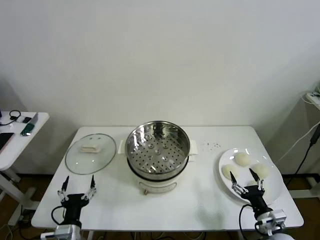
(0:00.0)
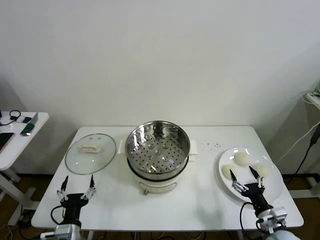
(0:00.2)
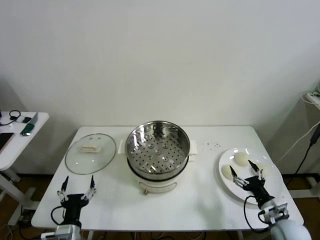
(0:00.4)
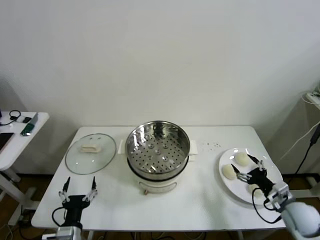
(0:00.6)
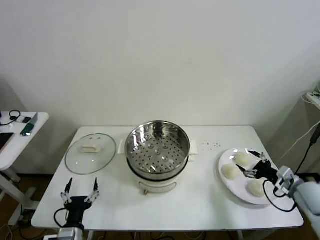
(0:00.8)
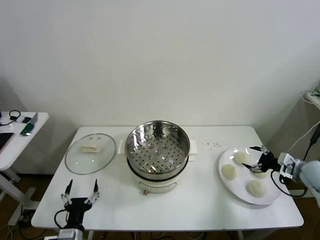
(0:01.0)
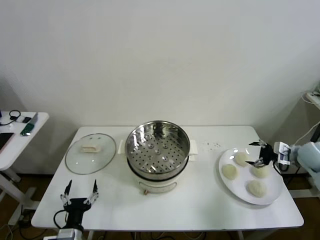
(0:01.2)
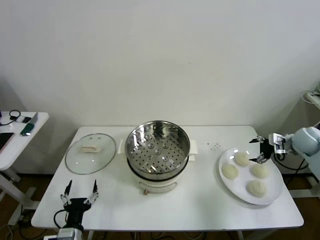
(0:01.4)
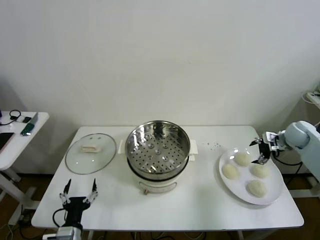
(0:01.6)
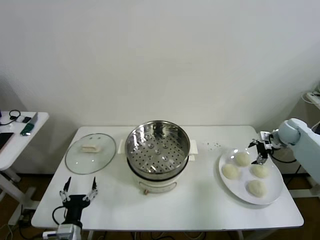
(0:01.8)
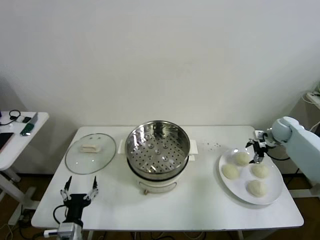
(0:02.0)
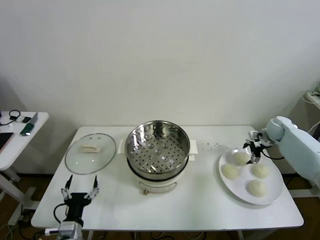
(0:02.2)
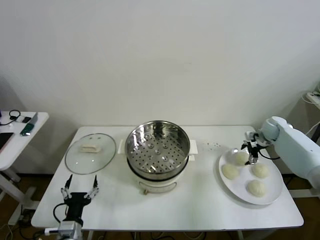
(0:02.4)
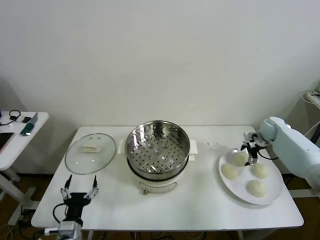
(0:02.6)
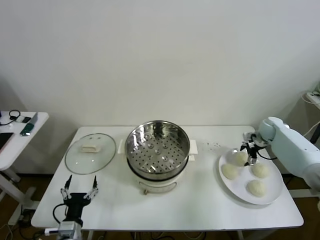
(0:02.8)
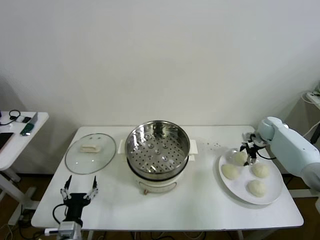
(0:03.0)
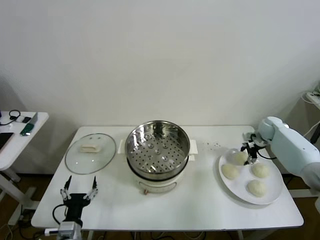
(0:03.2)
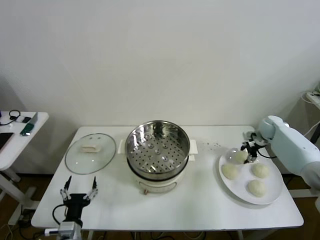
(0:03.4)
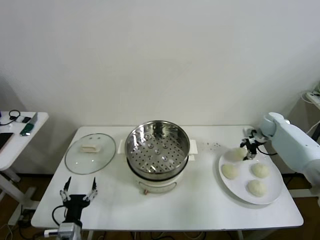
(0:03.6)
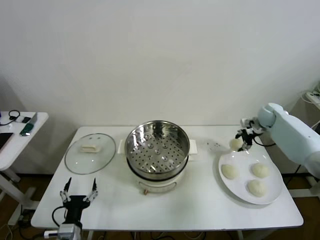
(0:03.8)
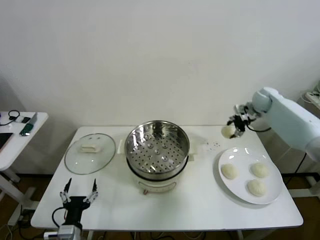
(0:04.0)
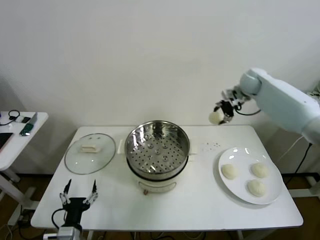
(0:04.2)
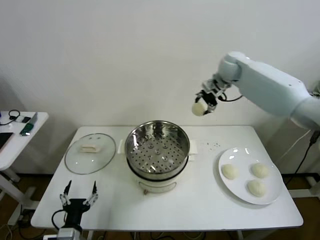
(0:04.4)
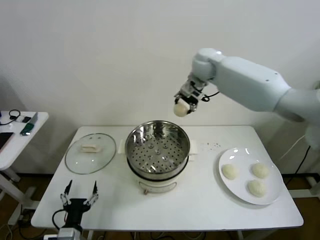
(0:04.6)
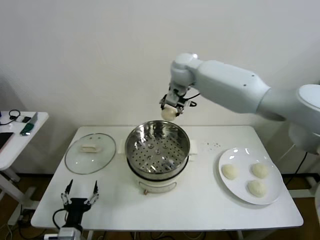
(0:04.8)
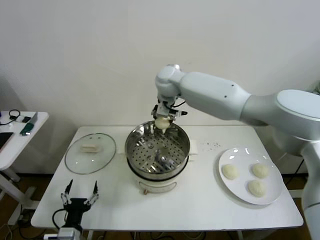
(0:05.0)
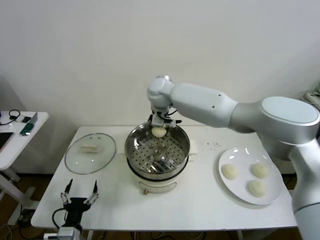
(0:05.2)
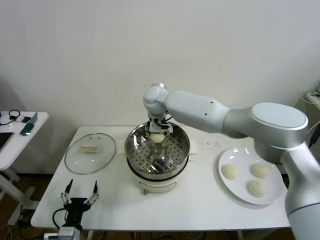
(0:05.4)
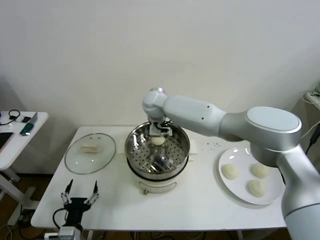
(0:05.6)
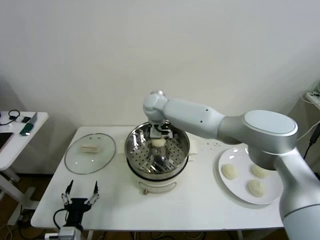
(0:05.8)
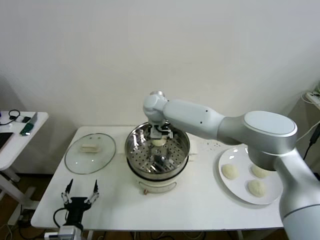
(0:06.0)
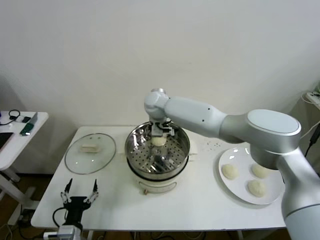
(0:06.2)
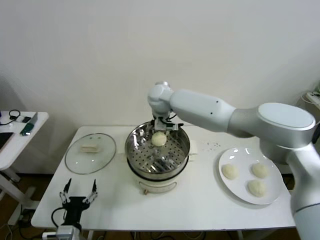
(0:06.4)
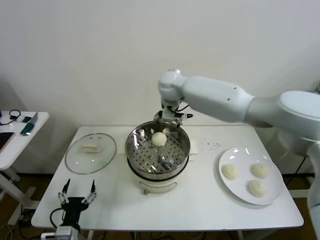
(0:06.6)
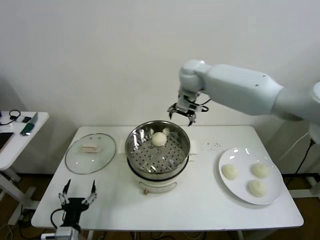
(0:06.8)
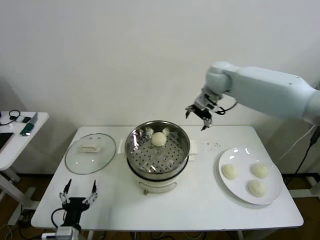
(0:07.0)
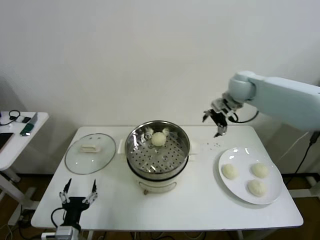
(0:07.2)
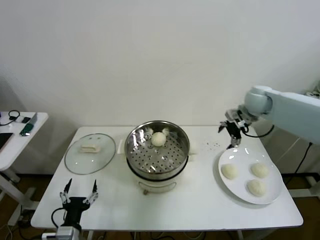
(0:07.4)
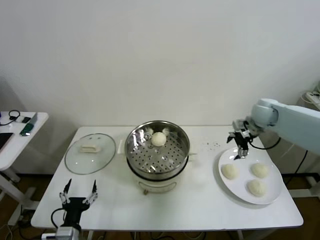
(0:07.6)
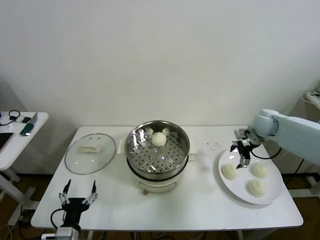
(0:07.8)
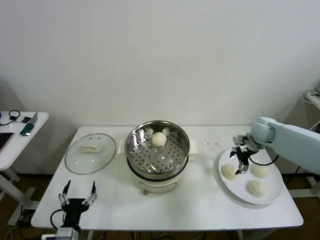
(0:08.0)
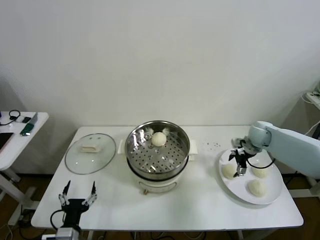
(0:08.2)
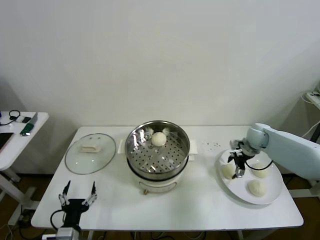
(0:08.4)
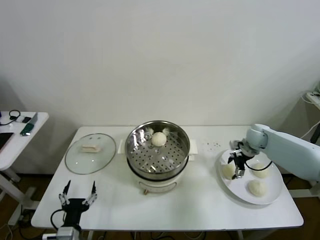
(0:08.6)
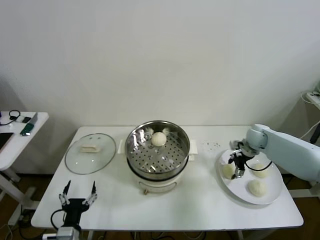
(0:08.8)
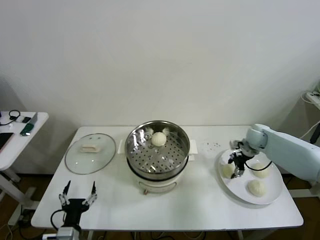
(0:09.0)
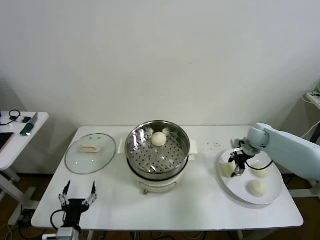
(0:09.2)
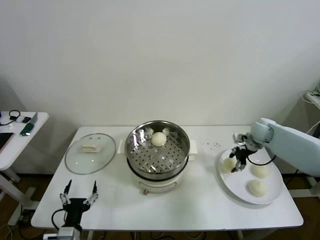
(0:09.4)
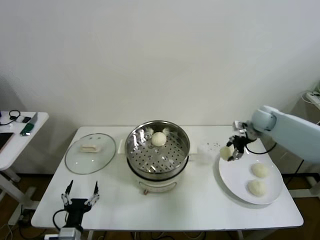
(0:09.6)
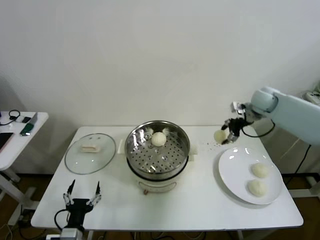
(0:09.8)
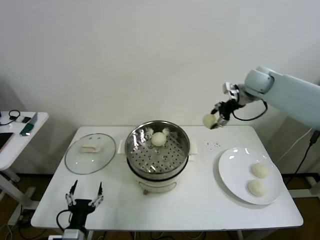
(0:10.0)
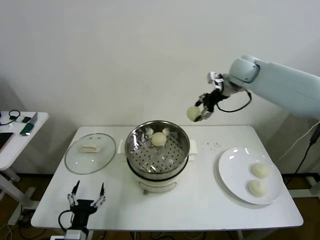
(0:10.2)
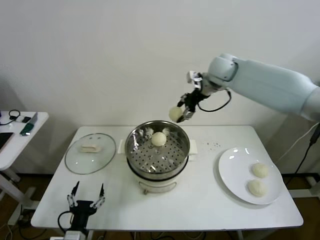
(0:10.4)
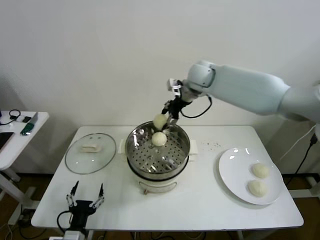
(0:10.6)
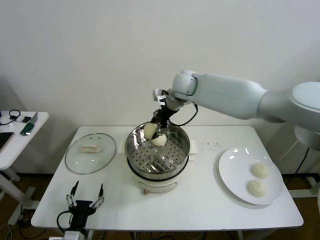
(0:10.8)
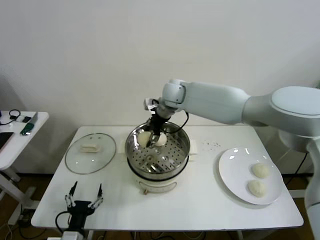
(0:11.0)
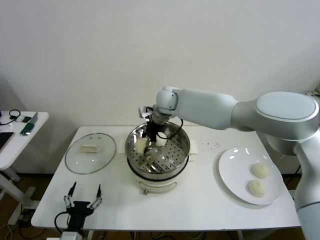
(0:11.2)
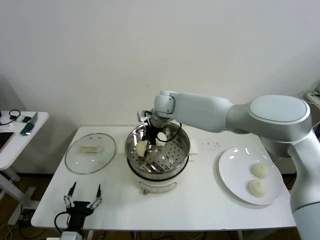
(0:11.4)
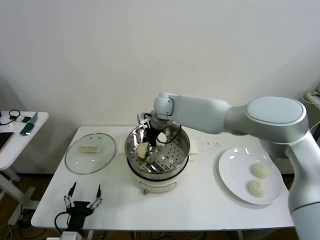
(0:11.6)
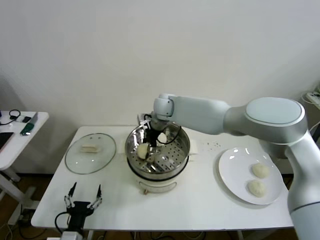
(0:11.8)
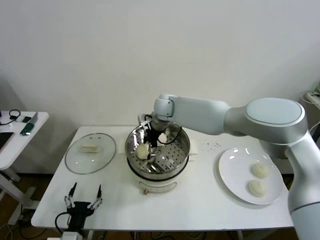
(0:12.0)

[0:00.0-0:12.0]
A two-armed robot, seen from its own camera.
Task of the whole recording: take steamed baozi put them in steamer then cover it.
Step, 0:00.0 to 0:03.2: Grasp the baozi in the plate with right gripper.
Step, 0:03.4 to 0:06.0: Place the baozi on the steamer with right gripper.
Step, 0:06.2 to 0:08.8: Grasp the baozi in the plate with right gripper.
0:01.6 to 0:03.0: The right gripper shifts approximately 5 cm forward, and closes.
0:03.0 to 0:04.4: The right gripper is displaced to the left and upward by about 40 cm, and closes its fingers.
0:04.4 to 0:06.0: The right gripper heads to the left and downward, covering approximately 25 cm, and opens its fingers.
0:06.0 to 0:07.6: The right gripper moves to the right, approximately 40 cm.
0:07.6 to 0:09.0: The right gripper shifts approximately 10 cm downward, and closes.
0:09.0 to 0:10.4: The right gripper travels upward and to the left by approximately 35 cm.
0:10.4 to 0:12.0: The right gripper is displaced to the left and downward by about 20 cm, and opens up.

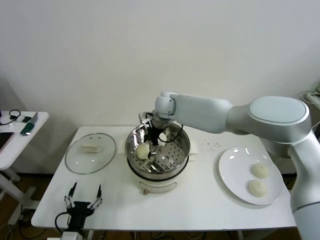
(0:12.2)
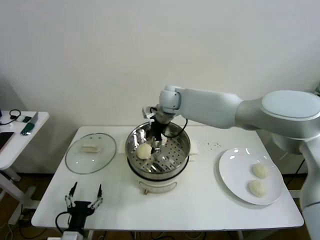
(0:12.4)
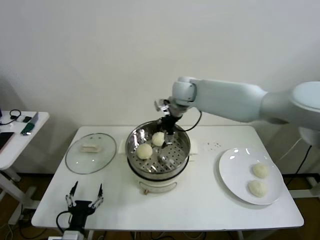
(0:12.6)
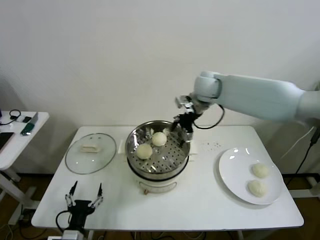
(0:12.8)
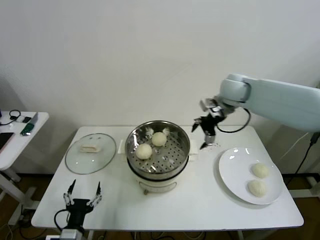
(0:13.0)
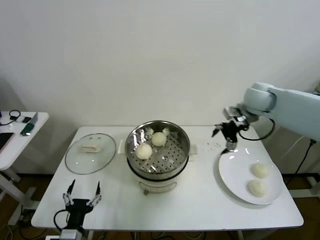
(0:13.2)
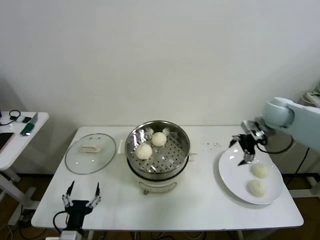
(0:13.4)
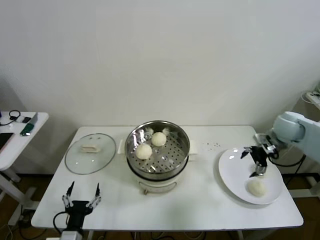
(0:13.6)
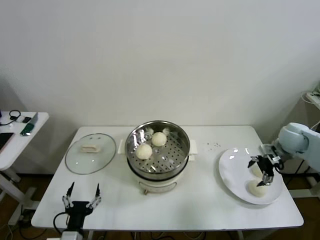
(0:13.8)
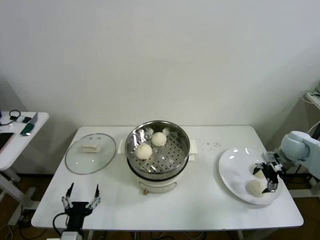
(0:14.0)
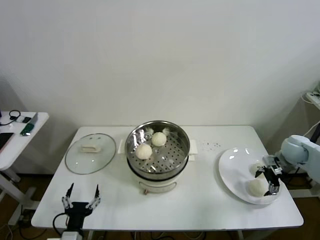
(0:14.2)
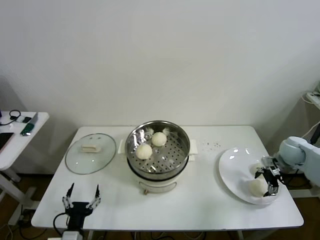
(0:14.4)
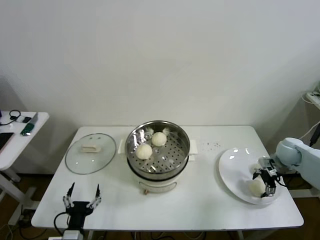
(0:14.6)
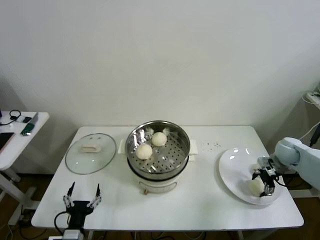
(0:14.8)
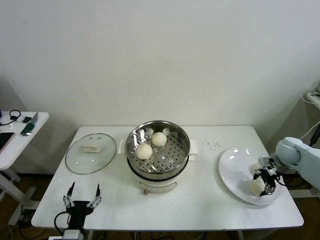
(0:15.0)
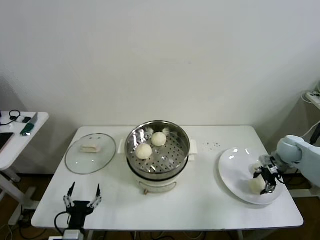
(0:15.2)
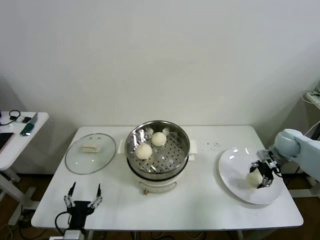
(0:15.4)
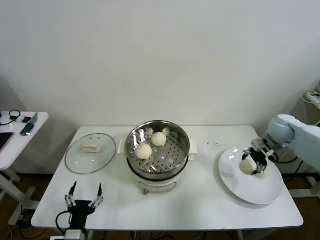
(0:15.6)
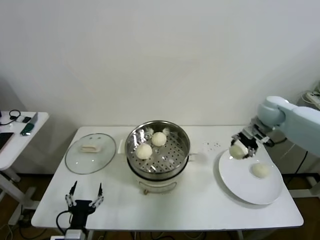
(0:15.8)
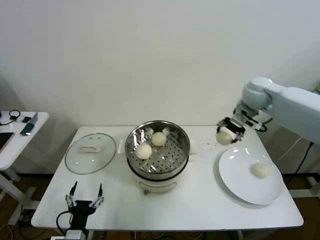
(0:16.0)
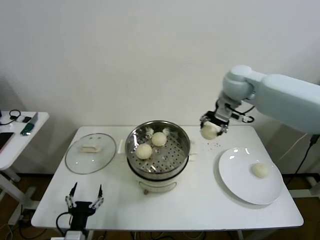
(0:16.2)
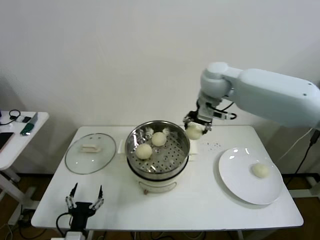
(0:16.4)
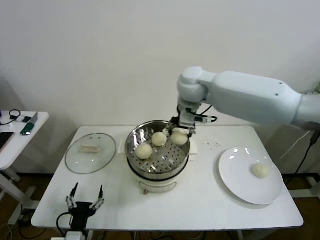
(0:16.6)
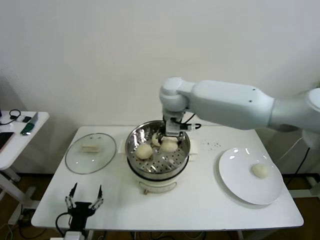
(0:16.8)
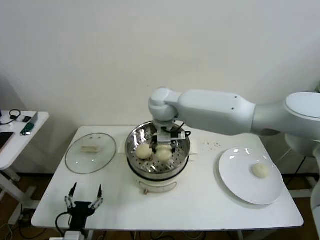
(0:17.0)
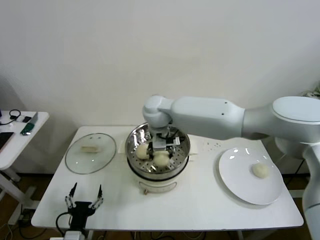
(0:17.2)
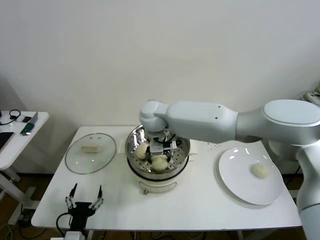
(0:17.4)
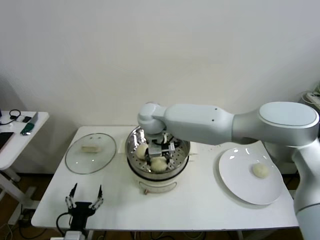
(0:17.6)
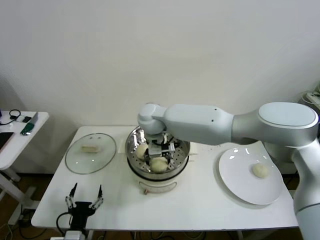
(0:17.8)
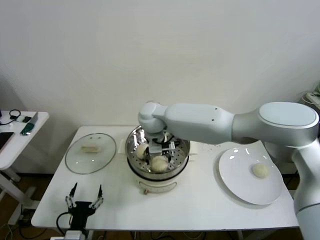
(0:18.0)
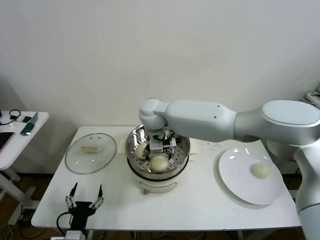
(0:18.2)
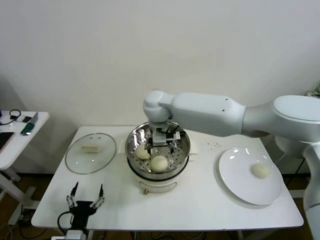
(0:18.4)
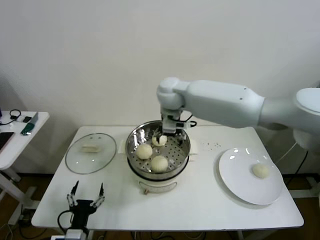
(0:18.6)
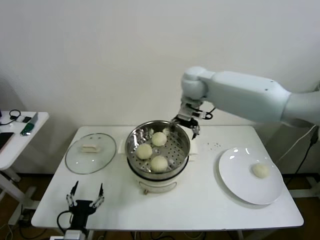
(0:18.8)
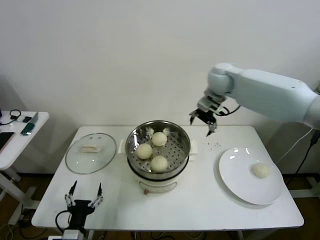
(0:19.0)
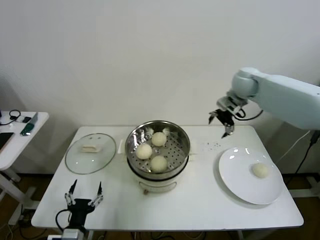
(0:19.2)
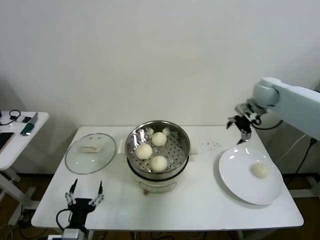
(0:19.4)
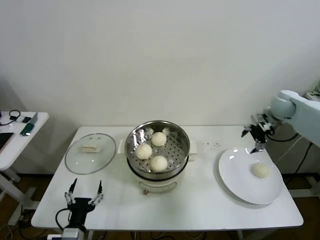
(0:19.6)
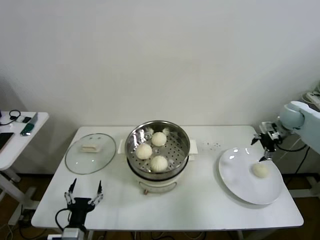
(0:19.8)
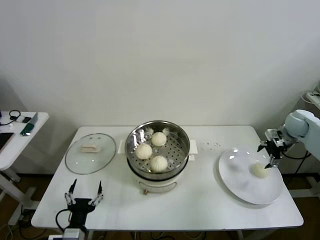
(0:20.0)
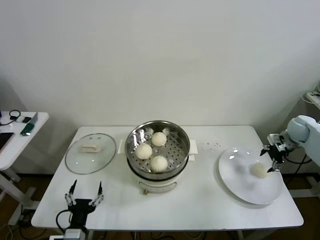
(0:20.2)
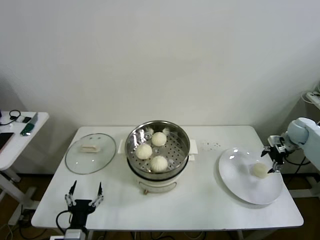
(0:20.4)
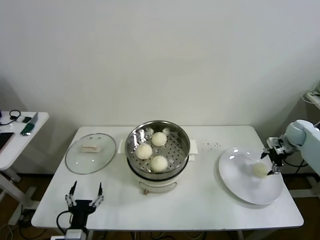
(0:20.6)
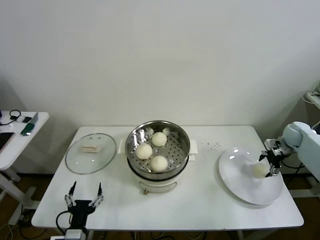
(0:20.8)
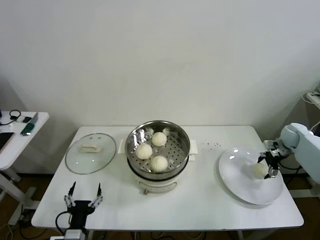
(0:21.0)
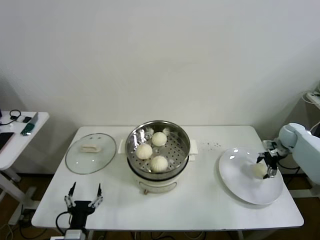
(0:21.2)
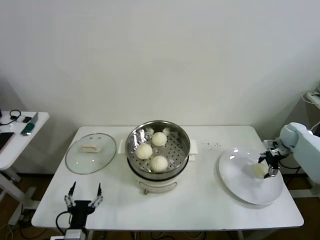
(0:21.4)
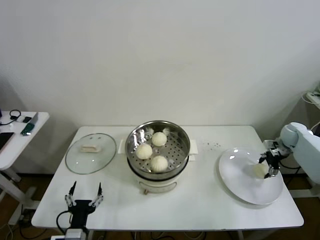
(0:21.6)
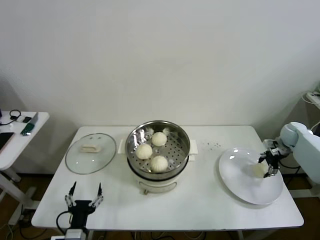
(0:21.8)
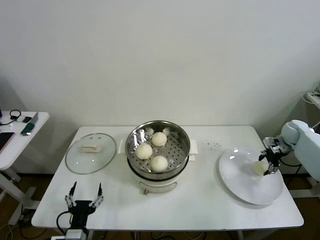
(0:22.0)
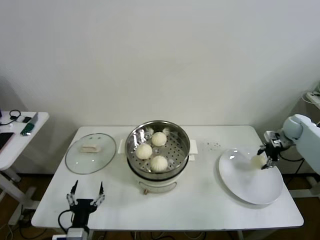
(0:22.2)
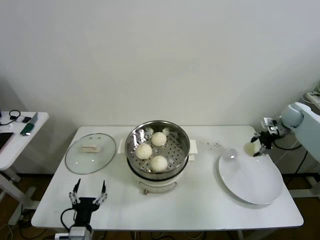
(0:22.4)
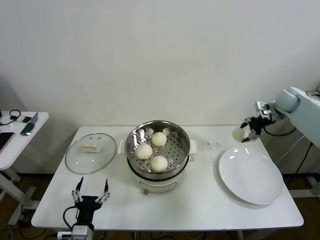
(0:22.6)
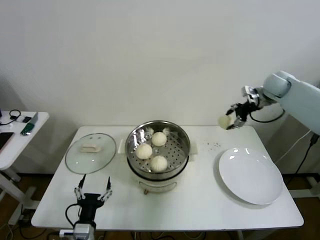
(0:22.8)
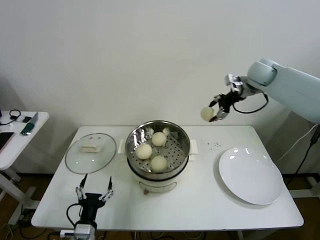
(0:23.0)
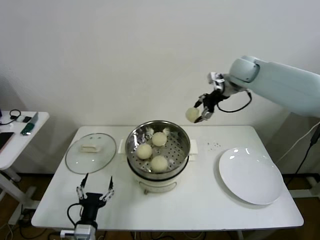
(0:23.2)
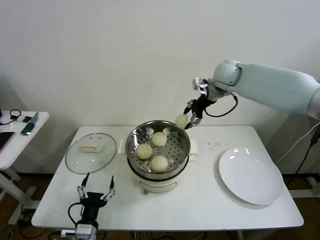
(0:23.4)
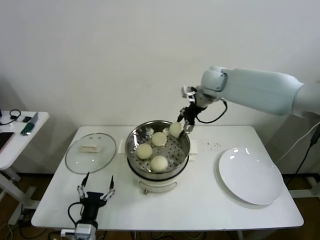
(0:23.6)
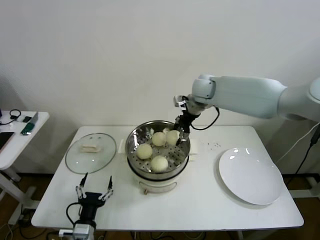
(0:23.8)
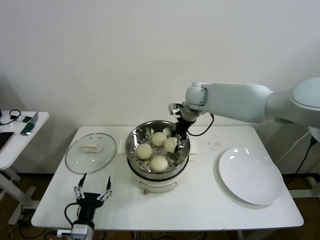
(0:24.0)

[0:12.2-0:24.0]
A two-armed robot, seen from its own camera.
Task of the whole recording: take steamed baozi put them in steamer then cover it.
Step, 0:12.2 to 0:14.8: Grasp the baozi in the plate with right gripper.
Step, 0:15.2 to 0:18.0: Place the baozi on the steamer with right gripper.
Step, 0:18.2 to 0:21.6: Grasp the baozi in the plate with right gripper.
0:12.2 to 0:13.6: The right gripper goes about 40 cm to the right.
0:13.6 to 0:15.2: The right gripper goes approximately 10 cm downward, and closes.
0:15.2 to 0:16.6: The right gripper heads to the left and upward, covering approximately 50 cm.
0:16.6 to 0:18.2: The right gripper goes roughly 15 cm to the left and downward, and opens.
0:18.2 to 0:19.6: The right gripper goes some 50 cm to the right.
0:19.6 to 0:21.0: The right gripper goes roughly 15 cm downward and to the right.
0:21.0 to 0:22.6: The right gripper shifts approximately 15 cm upward and to the left, and closes up.
0:22.6 to 0:24.0: The right gripper is displaced to the left by about 35 cm.
